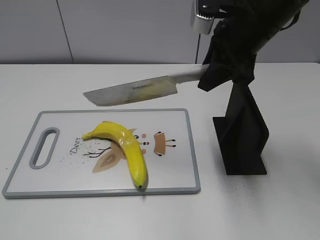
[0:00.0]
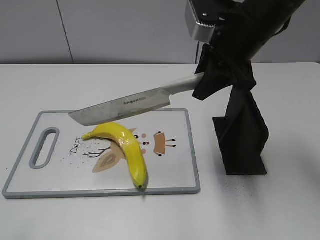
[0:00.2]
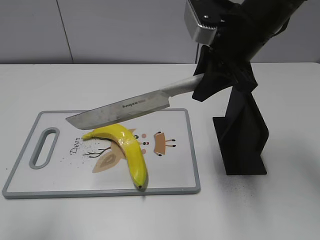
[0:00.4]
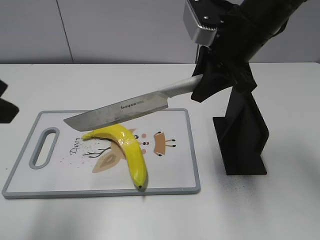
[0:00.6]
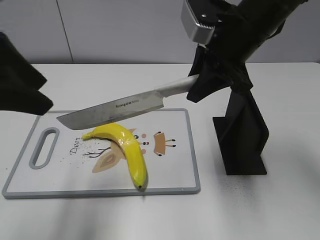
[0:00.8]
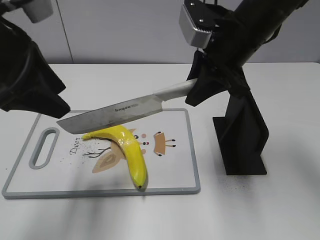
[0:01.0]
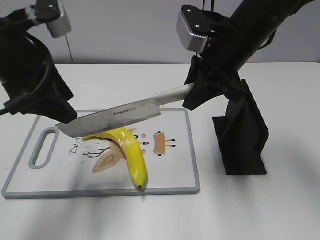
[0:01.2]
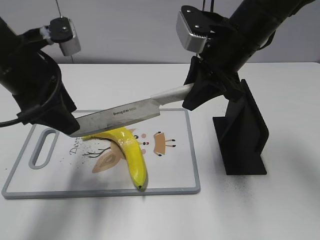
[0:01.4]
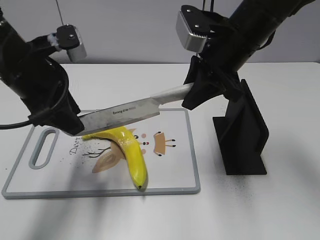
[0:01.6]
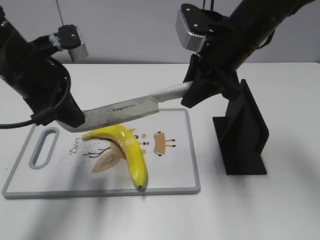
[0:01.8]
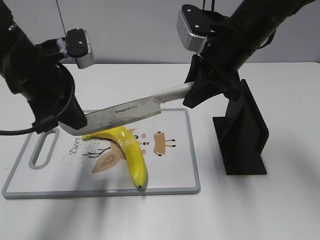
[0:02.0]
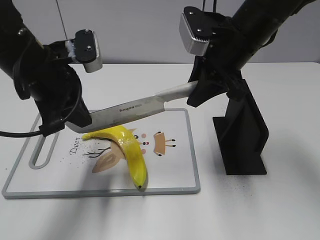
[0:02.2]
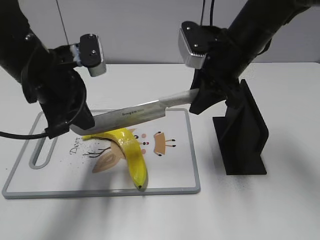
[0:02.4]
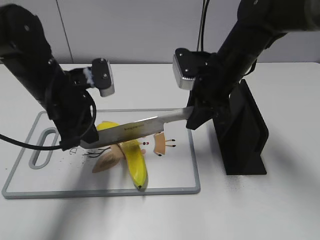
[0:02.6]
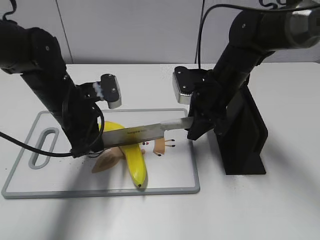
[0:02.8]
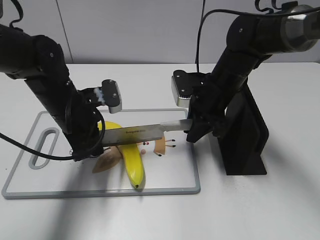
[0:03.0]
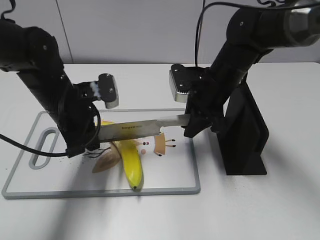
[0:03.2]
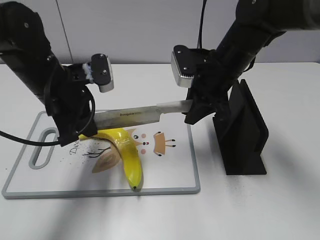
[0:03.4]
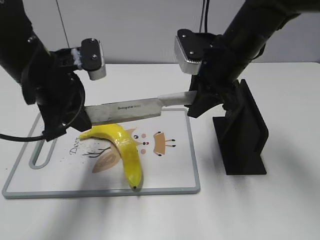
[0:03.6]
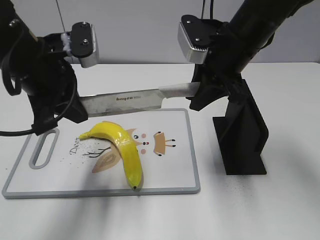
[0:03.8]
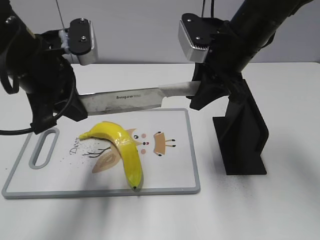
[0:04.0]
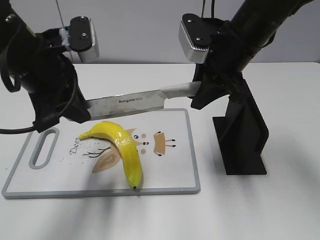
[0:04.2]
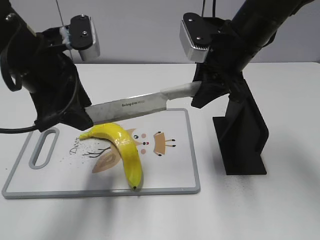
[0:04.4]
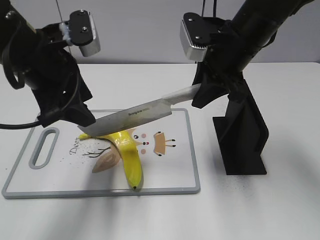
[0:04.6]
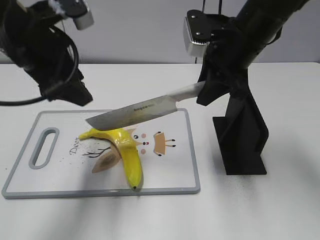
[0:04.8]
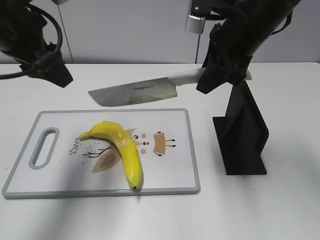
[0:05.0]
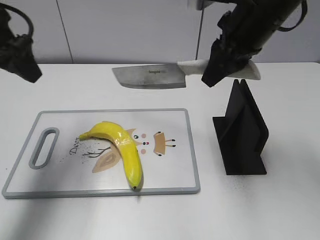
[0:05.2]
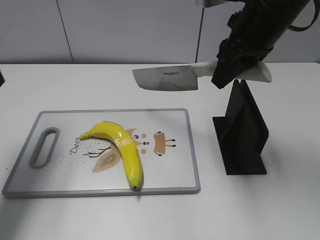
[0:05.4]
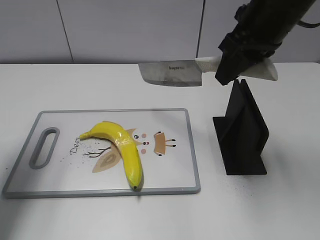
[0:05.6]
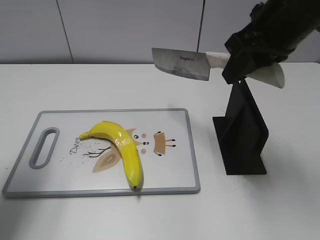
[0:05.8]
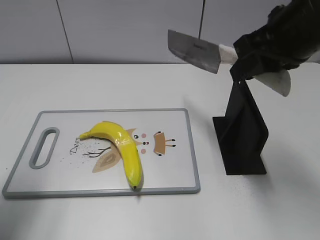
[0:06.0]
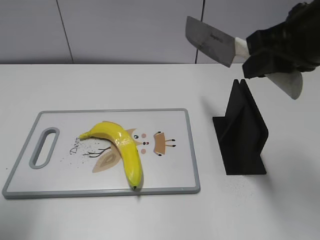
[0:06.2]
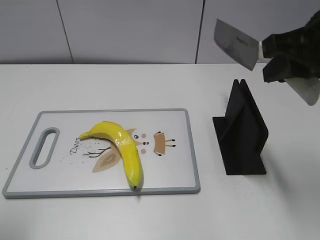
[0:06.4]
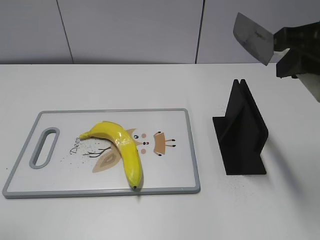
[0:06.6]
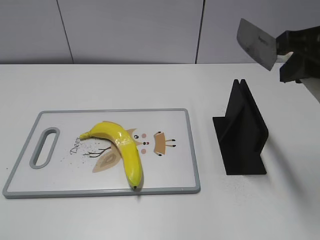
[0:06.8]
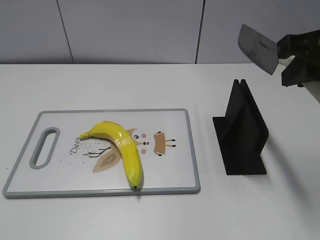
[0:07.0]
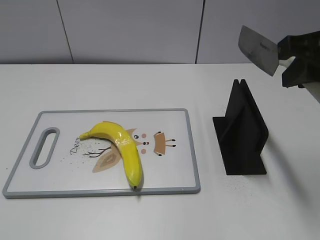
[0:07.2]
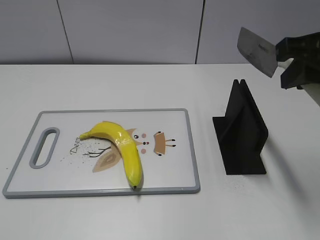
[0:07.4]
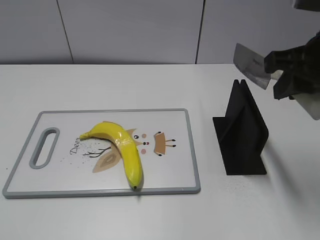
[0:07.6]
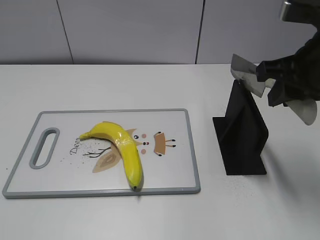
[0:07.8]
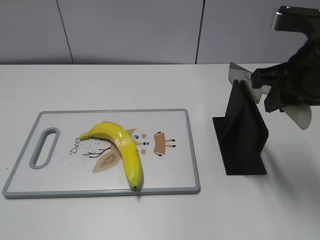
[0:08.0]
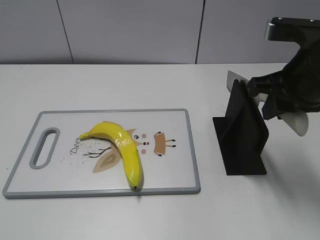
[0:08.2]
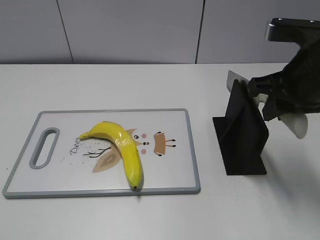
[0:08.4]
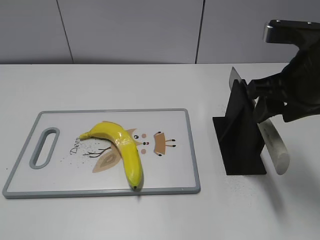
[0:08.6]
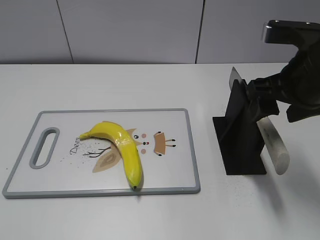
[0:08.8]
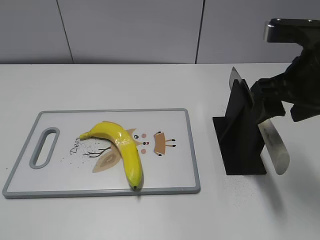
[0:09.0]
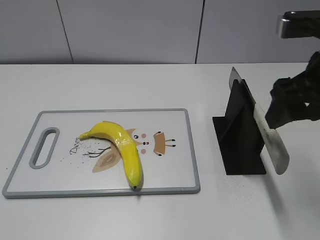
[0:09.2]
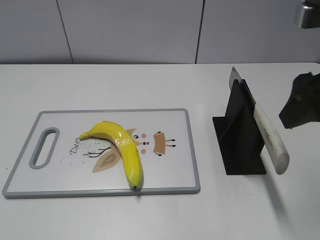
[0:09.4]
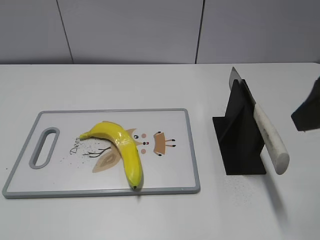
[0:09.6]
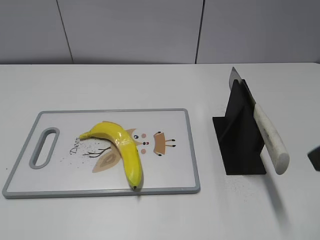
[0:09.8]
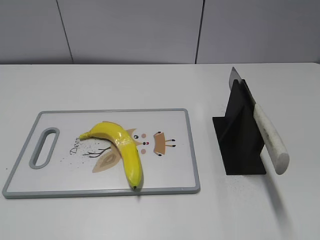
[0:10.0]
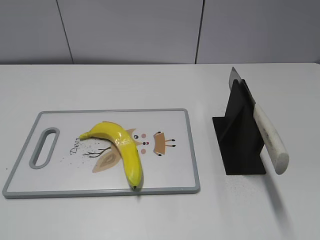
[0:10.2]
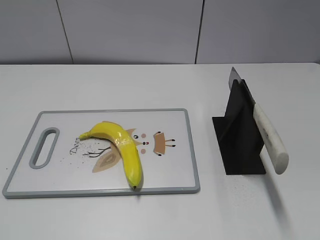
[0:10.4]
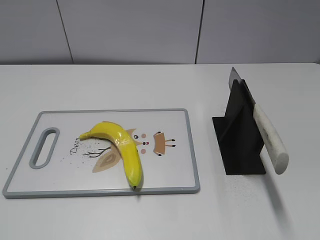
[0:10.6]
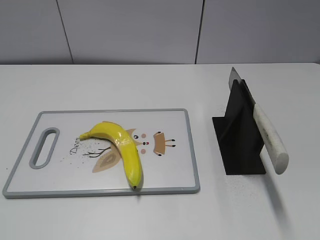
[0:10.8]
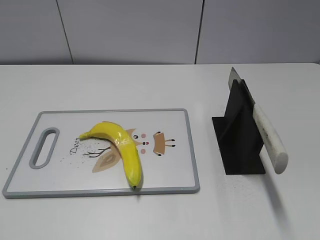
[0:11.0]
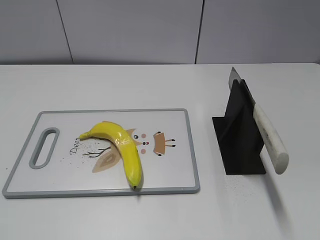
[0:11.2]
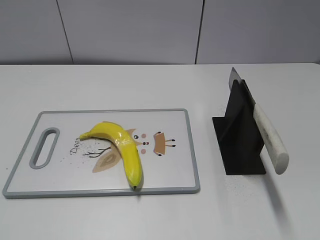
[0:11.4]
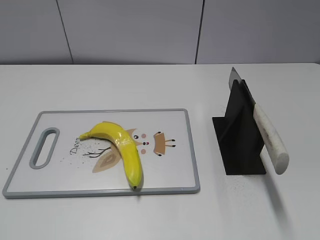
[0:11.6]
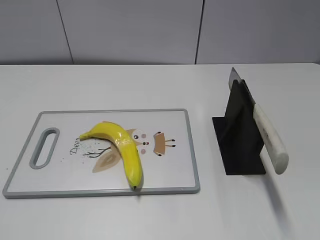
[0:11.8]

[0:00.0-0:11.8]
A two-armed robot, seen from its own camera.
Task of the whole recording: cut plastic banana.
Step, 0:00.0 to 0:04.6: Hold the blade with your left hand.
Step, 0:05.0 to 0:05.6: Cut the banana with your right hand.
Step, 0:05.8 to 0:06.6: Lift the knife with your right hand.
Step, 0:06.8 to 0:11.8: Place the knife on the storage rack with your right hand.
0:00.0 to 0:01.4: The left gripper goes some 30 cm forward and to the right.
0:01.4 to 0:03.0: The two grippers go about 10 cm downward. The left gripper closes its fingers.
0:03.0 to 0:04.4: The two grippers go some 10 cm upward. The left gripper opens.
0:04.4 to 0:06.0: The right gripper shifts about 10 cm backward and upward. Meanwhile the left gripper travels to the left and backward by about 15 cm.
0:06.0 to 0:07.4: The left gripper shifts about 25 cm backward, while the right gripper ends up some 5 cm from where it was.
0:07.4 to 0:08.8: The right gripper shifts approximately 5 cm downward, and opens up.
0:08.8 to 0:10.4: The right gripper goes roughly 20 cm backward.

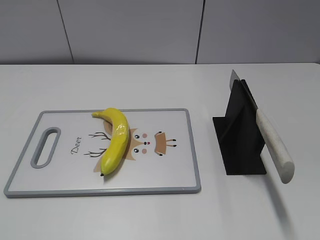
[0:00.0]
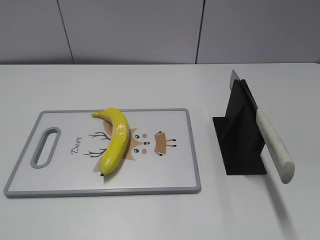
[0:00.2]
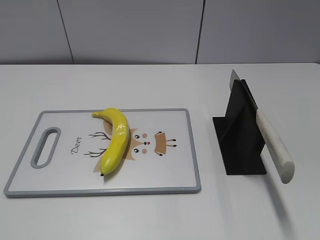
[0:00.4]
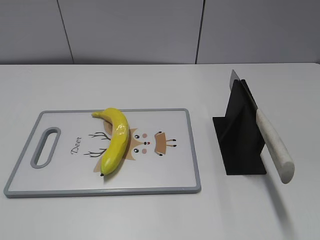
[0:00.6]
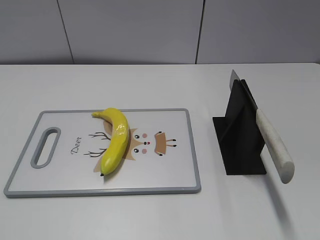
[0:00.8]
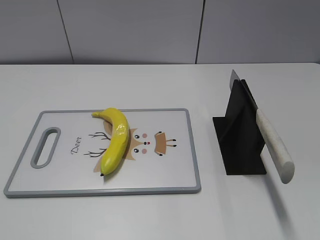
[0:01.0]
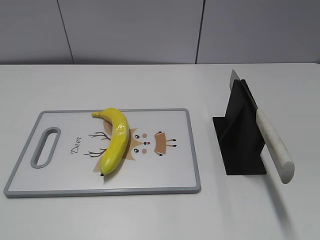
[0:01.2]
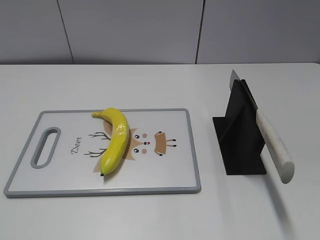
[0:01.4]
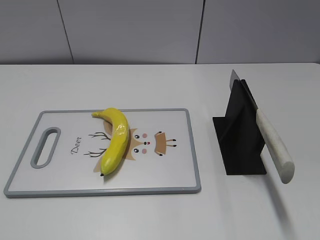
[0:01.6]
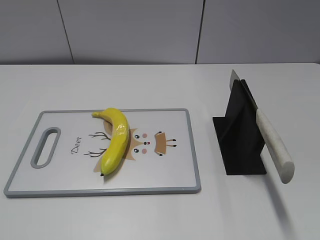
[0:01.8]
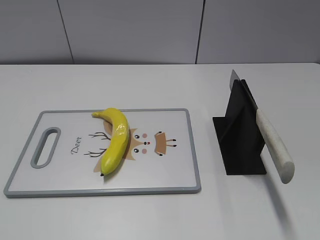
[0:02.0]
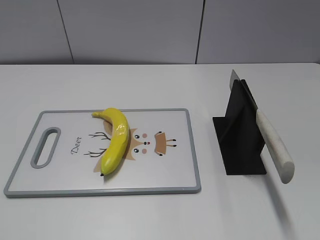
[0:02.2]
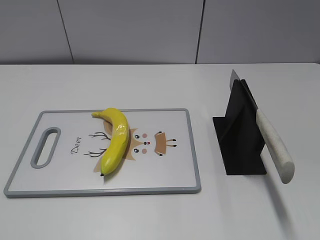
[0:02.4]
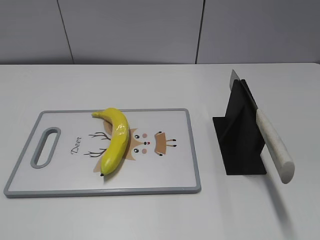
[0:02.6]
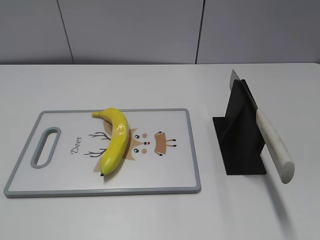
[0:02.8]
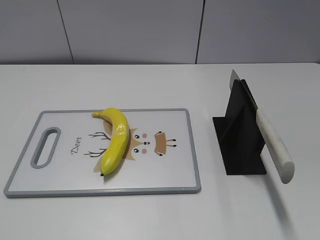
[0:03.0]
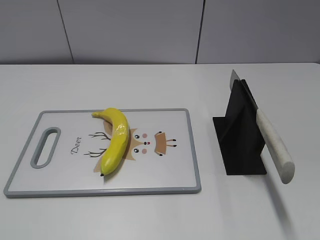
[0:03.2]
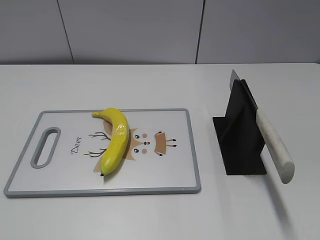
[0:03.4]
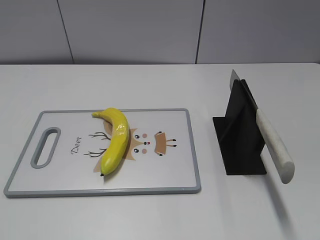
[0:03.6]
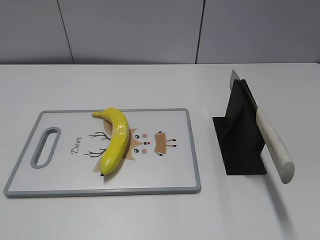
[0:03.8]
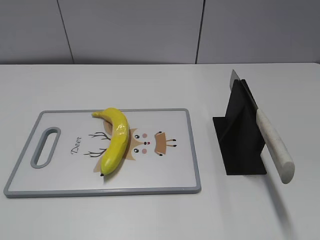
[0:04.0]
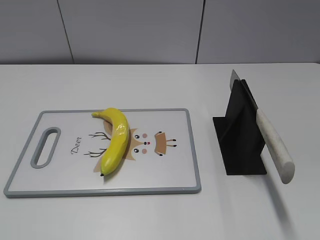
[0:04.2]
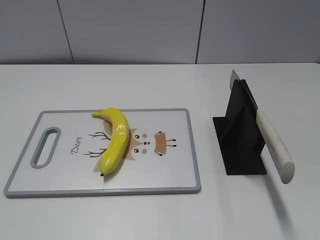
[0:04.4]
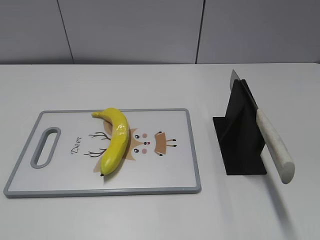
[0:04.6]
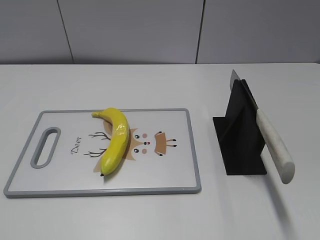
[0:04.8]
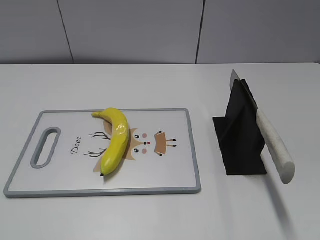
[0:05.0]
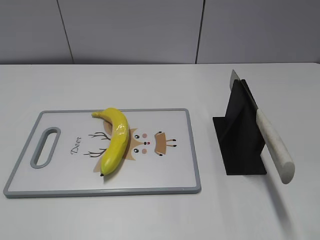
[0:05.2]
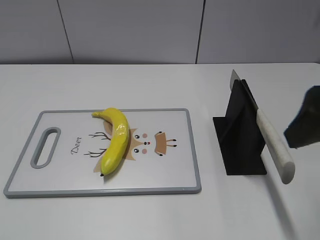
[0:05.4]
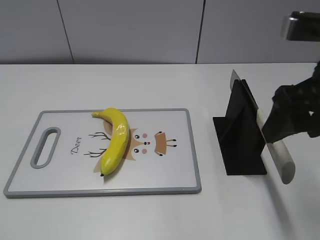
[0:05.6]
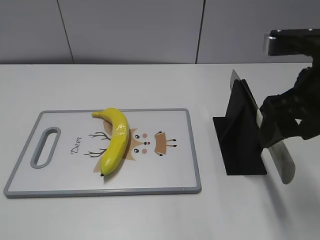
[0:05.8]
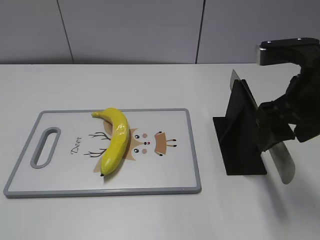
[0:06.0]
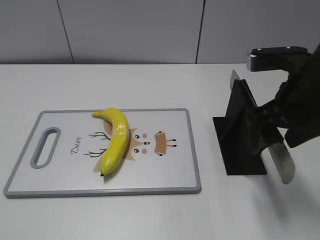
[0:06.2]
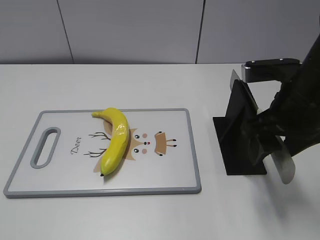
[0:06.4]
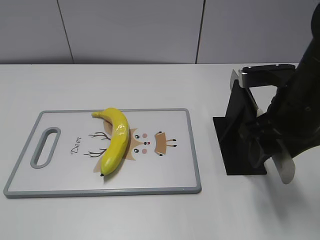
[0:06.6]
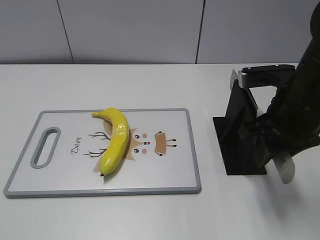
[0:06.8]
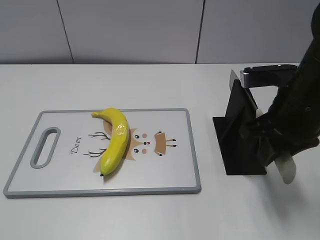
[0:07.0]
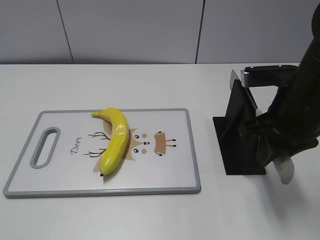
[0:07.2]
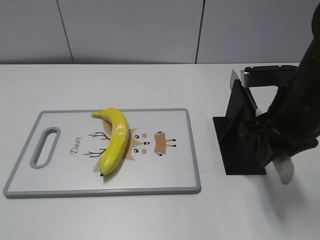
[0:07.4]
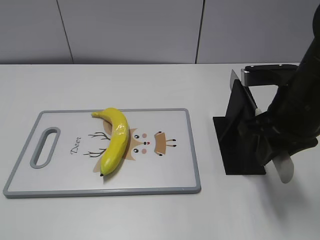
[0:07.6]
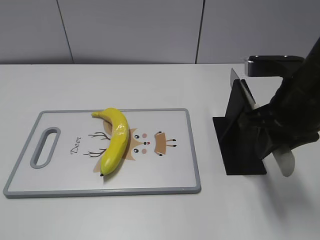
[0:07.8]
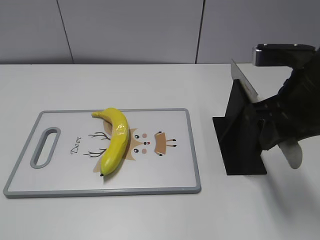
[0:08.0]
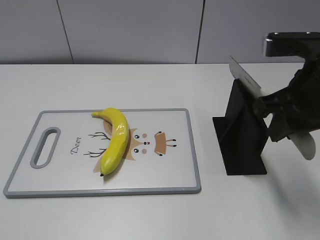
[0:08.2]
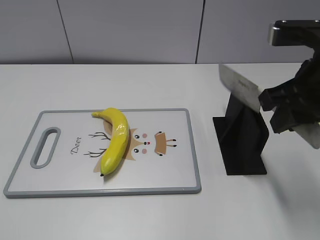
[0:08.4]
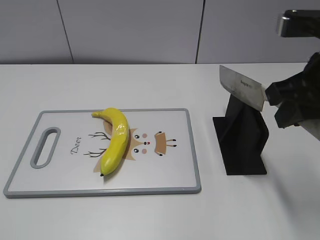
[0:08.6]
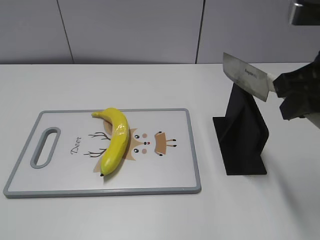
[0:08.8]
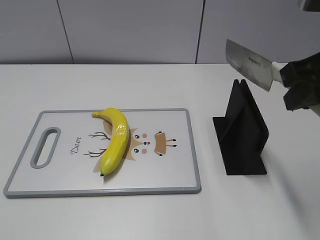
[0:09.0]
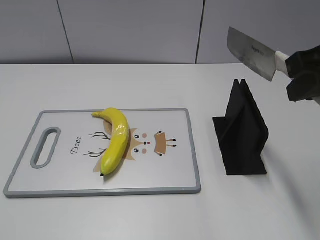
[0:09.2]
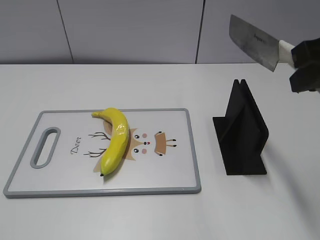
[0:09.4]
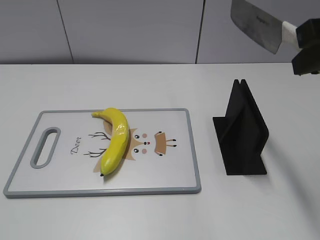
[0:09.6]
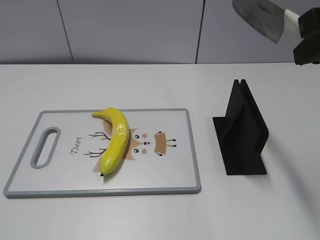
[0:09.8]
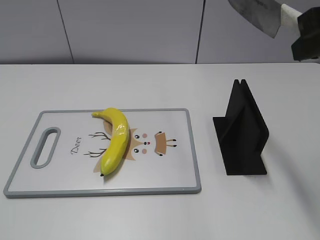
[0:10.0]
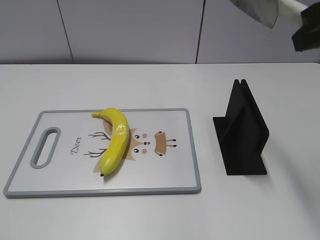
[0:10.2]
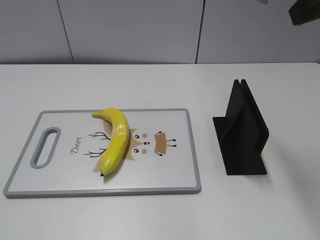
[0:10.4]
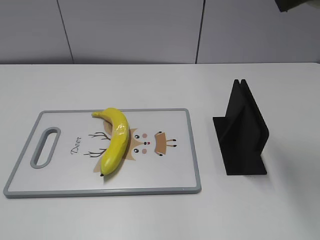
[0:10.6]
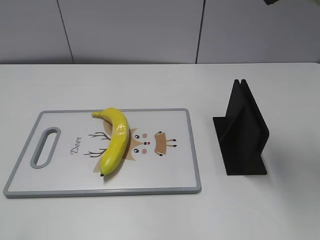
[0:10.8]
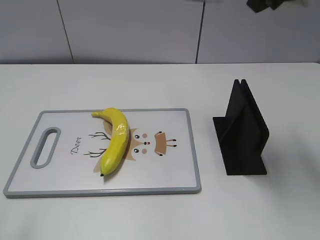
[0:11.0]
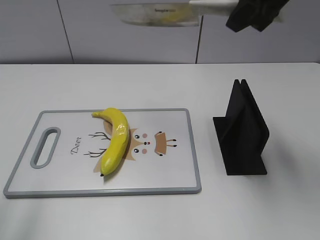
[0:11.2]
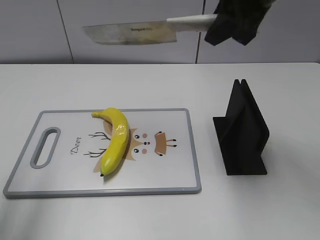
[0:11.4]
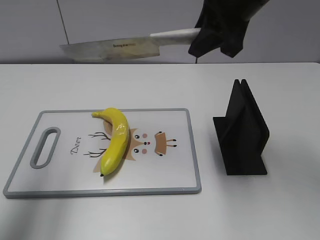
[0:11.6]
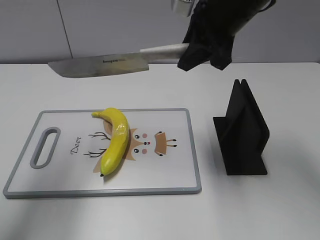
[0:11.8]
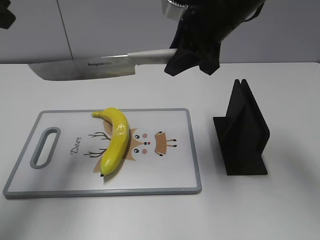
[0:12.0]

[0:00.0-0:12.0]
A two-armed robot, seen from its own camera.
Task of the whole recording: cut plastic banana.
Step, 0:00.0 to 0:08.6: Grab the knife handle with your right hand.
0:01.6 to 0:03.0: The two grippers keep their place.
0:04.4 to 0:06.0: The right gripper moves forward and to the left, about 20 cm.
0:06.0 to 0:07.6: The right gripper closes.
0:07.6 to 0:09.0: The right gripper goes some 10 cm upward.
0:09.0 to 0:10.4: The right gripper shifts about 10 cm upward.
0:10.4 to 0:12.0: The left gripper is displaced forward by some 30 cm, while the right gripper shifts roughly 20 cm forward, to the left and downward.
